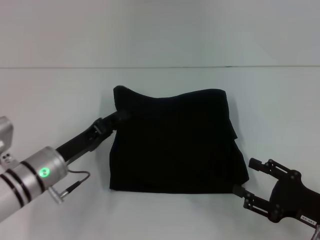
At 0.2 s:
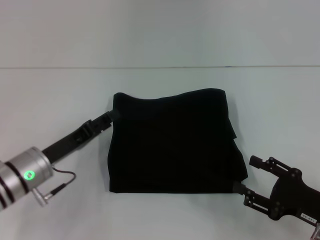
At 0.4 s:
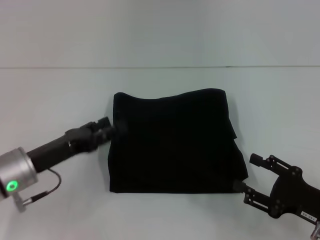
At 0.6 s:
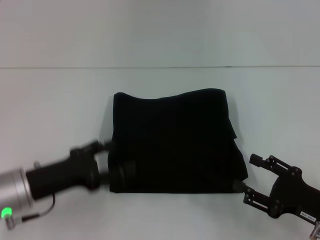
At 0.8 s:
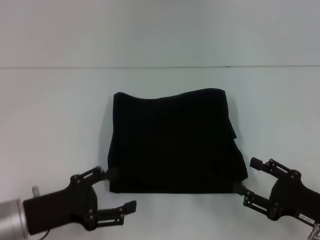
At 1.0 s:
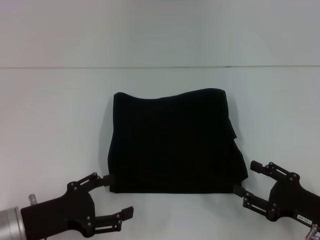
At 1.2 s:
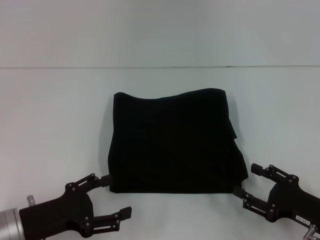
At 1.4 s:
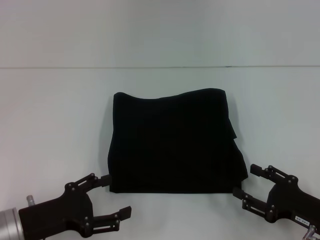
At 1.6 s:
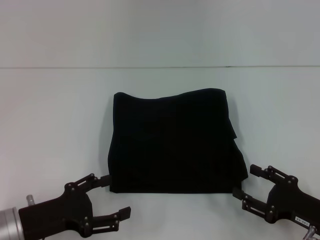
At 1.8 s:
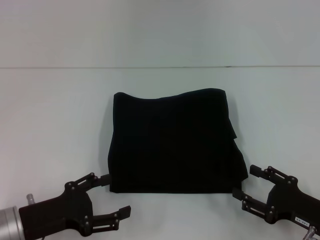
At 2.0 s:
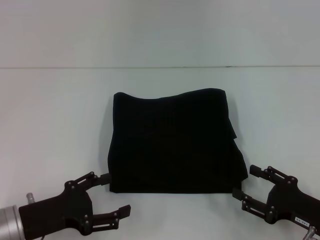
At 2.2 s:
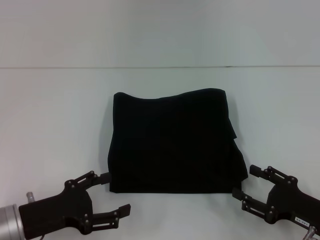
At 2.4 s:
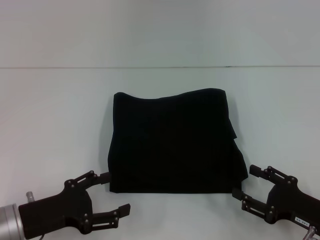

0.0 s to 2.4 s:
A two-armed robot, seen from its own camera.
0.0 to 1.2 s: The left gripper is displaced backward by about 10 cm, and opens.
1.2 to 2.4 s: The two grippers keep their place.
